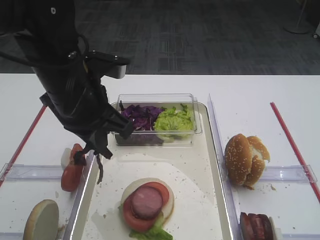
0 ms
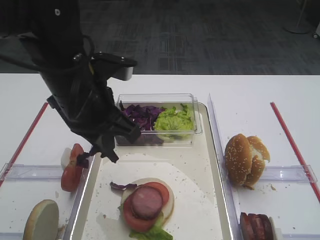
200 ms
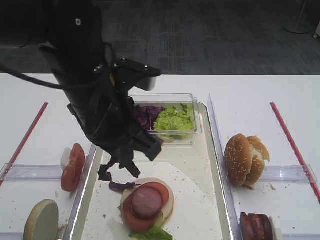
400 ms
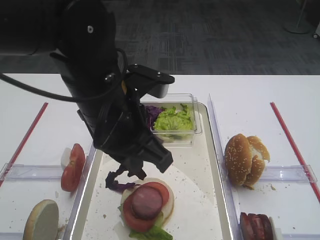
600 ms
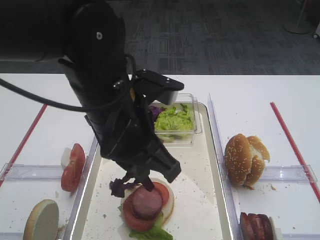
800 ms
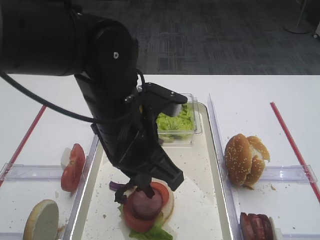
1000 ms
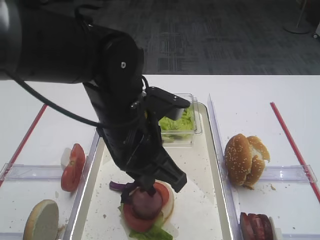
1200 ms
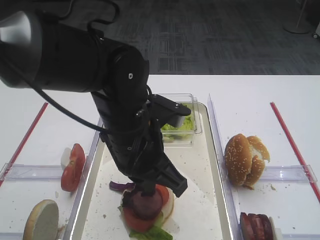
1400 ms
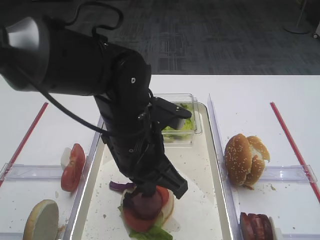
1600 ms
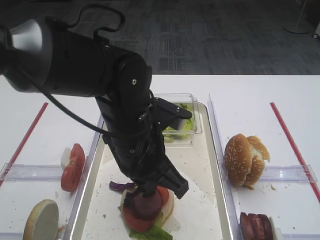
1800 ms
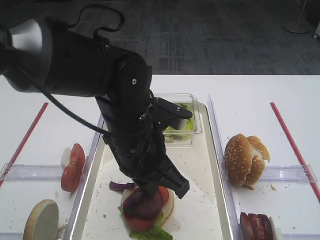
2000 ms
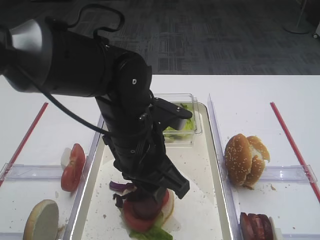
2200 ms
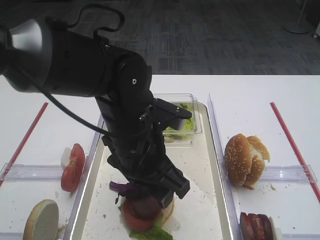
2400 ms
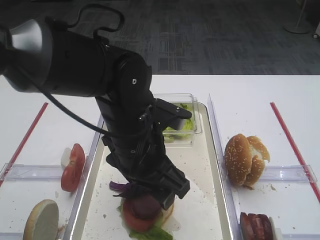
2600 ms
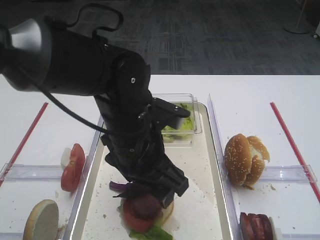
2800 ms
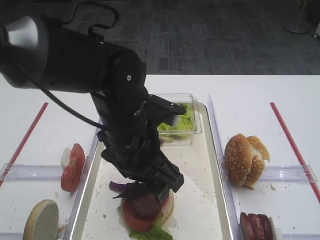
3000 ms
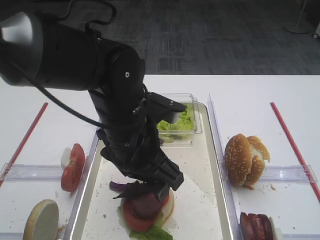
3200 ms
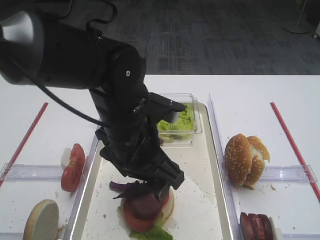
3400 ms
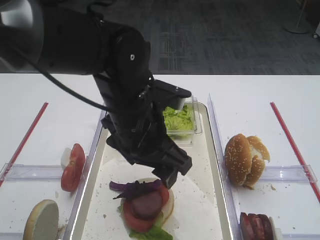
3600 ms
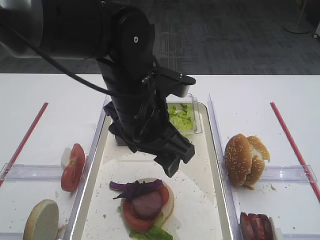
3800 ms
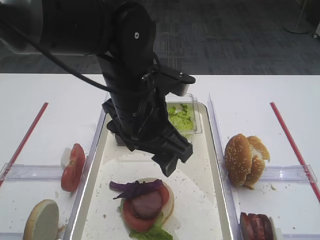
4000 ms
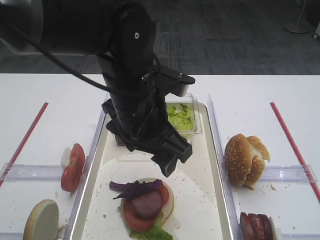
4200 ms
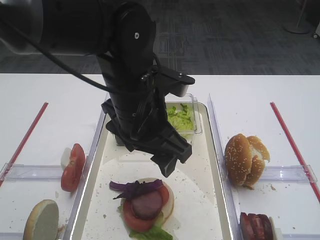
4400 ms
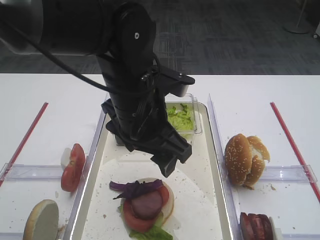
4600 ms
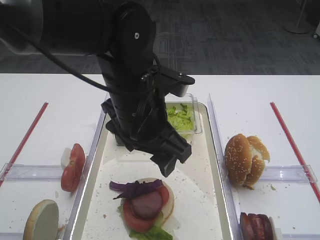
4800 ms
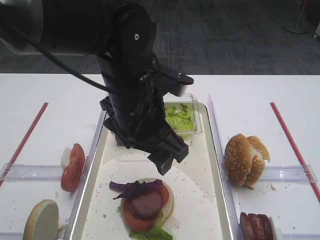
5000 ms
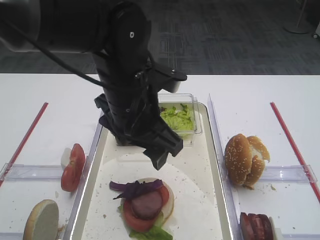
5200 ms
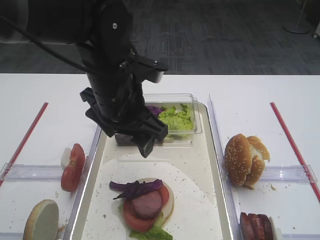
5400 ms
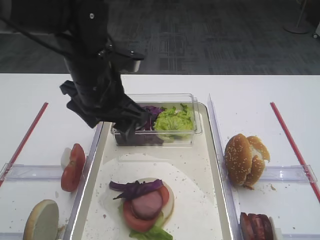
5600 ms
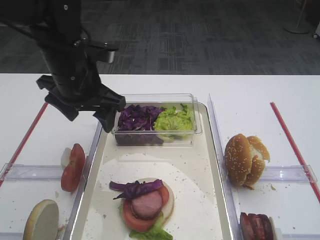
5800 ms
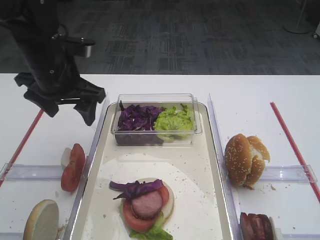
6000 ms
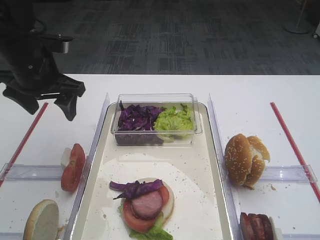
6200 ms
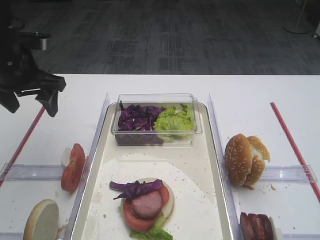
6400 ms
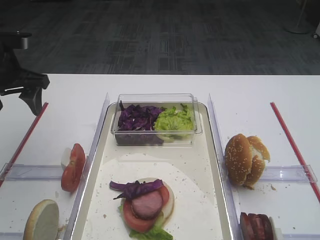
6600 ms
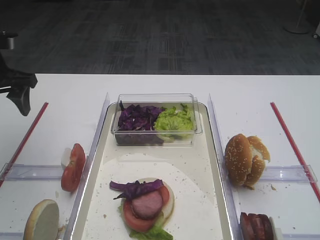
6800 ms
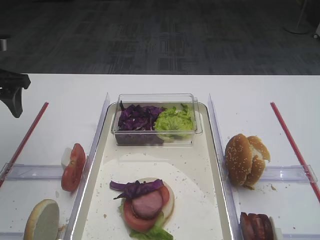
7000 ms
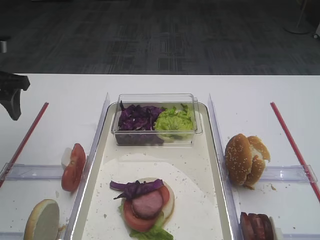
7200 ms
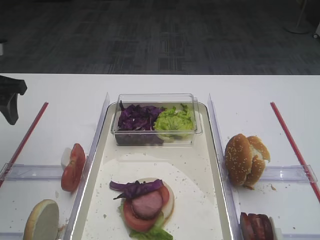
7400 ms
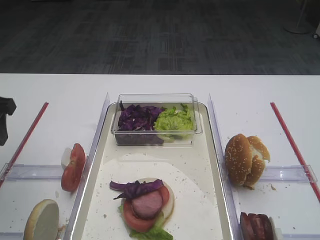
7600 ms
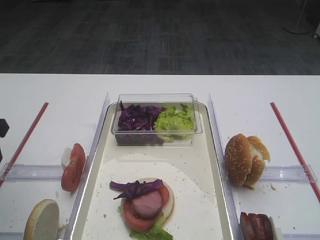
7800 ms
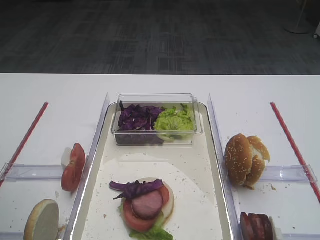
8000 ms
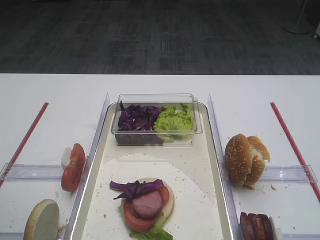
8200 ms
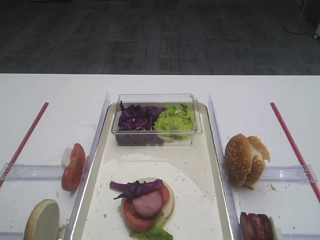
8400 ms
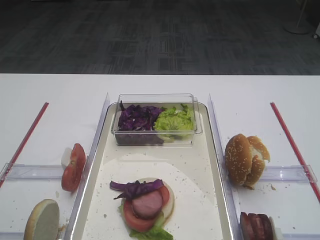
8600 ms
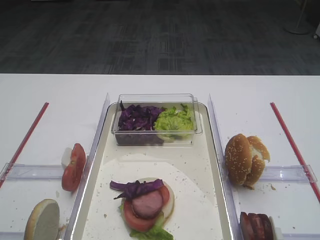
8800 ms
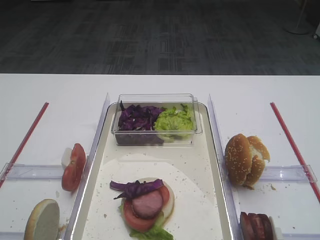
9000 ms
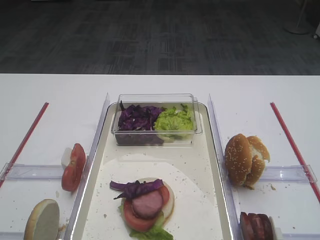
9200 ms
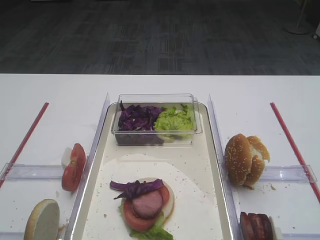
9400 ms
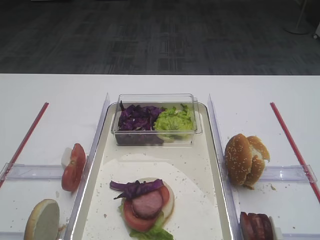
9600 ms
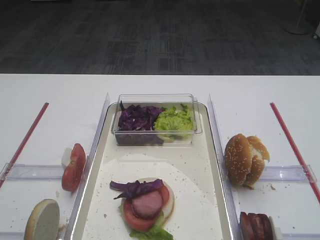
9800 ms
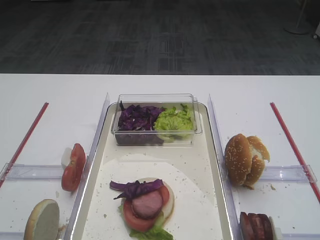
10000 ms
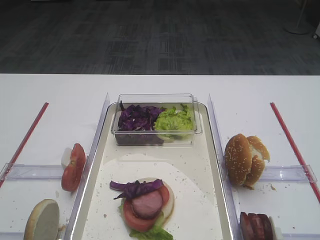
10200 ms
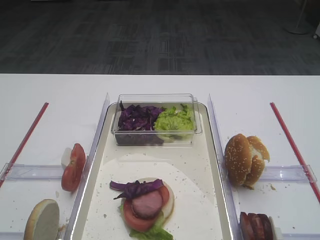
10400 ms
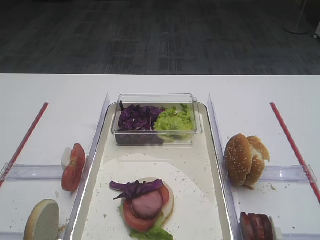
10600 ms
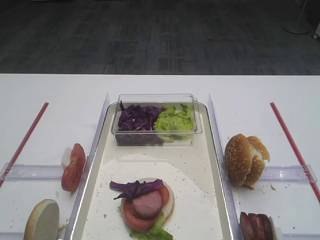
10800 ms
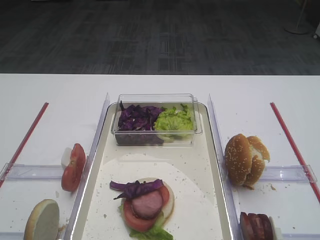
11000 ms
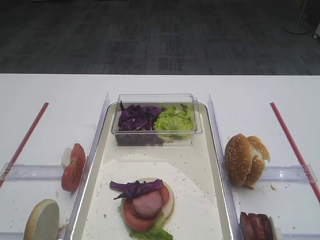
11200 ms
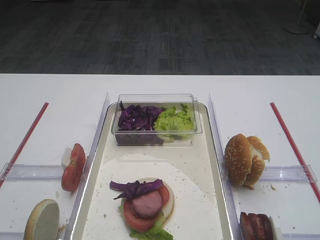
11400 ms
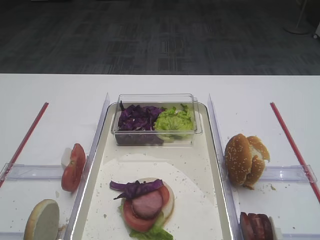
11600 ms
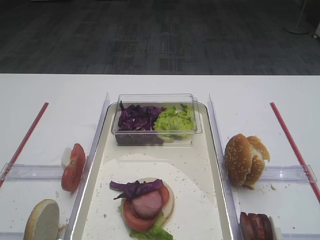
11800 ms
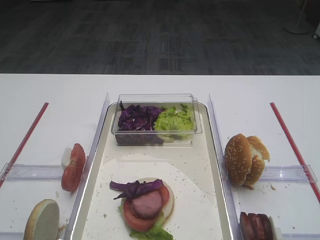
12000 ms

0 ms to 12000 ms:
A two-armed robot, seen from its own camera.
Step, 0 ms to 5600 ms: Place the purple cabbage on the cutlet with the left gripper.
0 ms to 1600 ms: The left gripper is displaced to the right and downward by about 10 cm.
1600 ms to 3000 ms: The left gripper opens its fingers.
3000 ms to 4400 ms: There are only small adjustments of the grippers.
4400 ms to 6000 ms: The left gripper goes some 15 cm to the left and forward.
6000 ms to 7600 ms: The left gripper moves to the left, roughly 15 cm.
7600 ms to 9000 ms: The left gripper moves backward, about 25 cm.
10400 ms to 12000 ms: Both grippers stay about where they are.

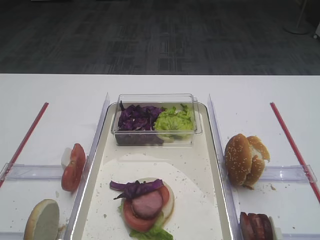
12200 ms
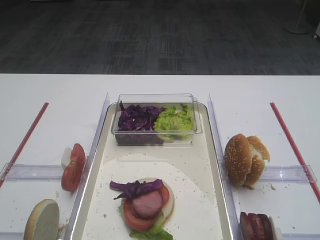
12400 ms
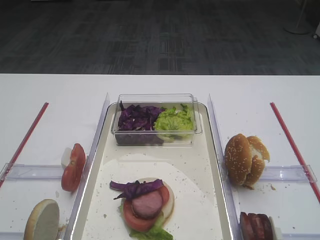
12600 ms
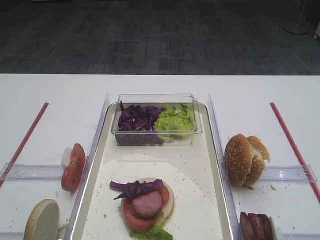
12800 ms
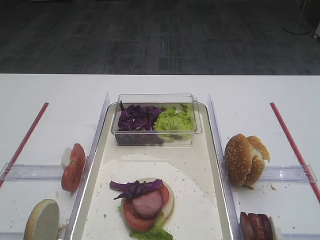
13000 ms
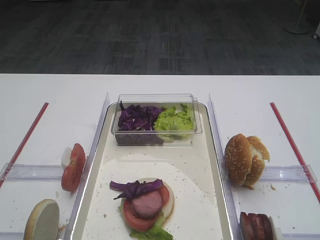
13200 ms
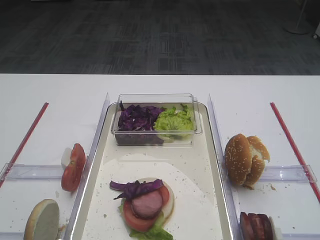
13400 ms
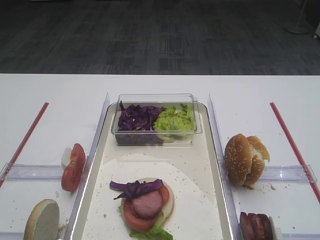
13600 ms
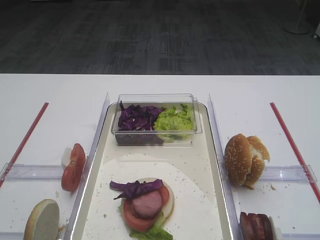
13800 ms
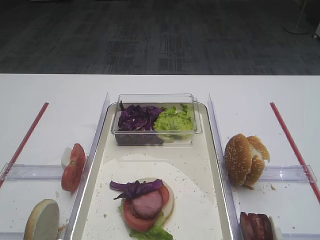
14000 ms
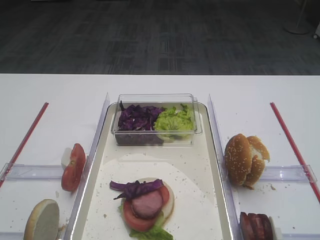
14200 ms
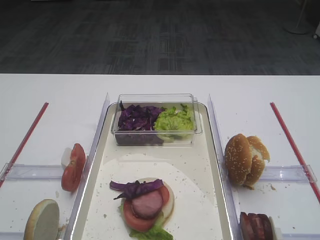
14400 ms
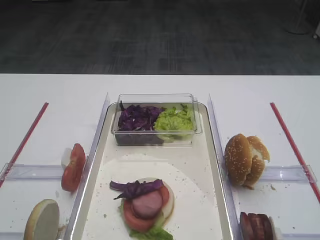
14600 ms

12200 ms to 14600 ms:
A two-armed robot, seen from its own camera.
12200 ms to 14600 ms: The two grippers keep their place.

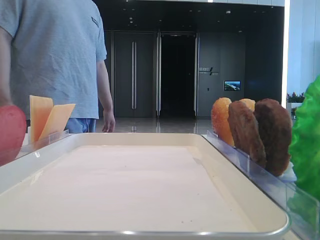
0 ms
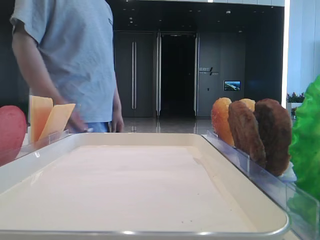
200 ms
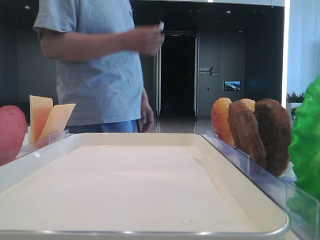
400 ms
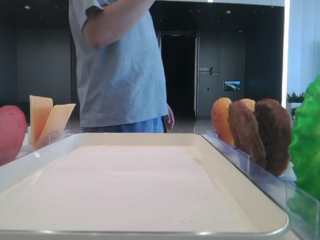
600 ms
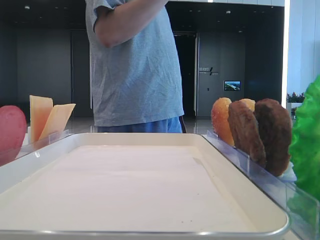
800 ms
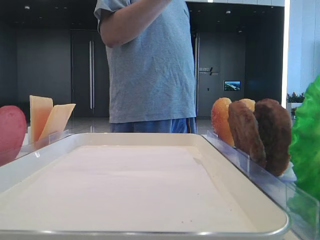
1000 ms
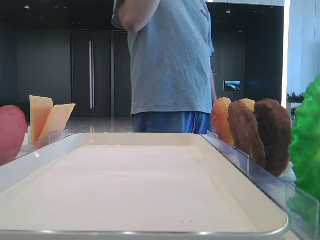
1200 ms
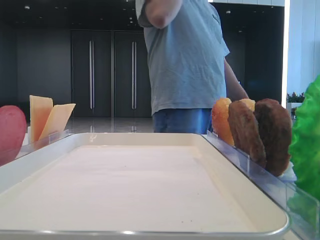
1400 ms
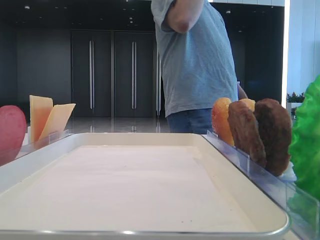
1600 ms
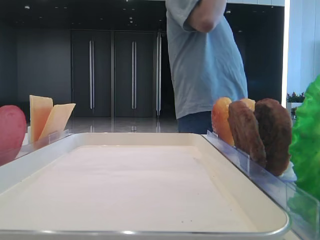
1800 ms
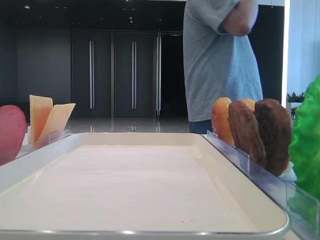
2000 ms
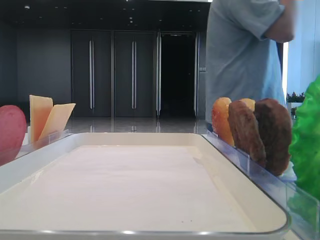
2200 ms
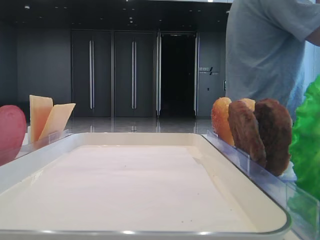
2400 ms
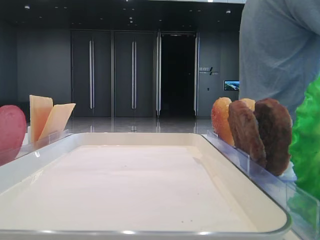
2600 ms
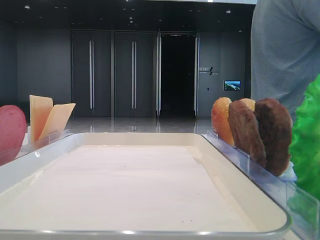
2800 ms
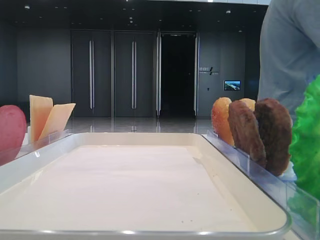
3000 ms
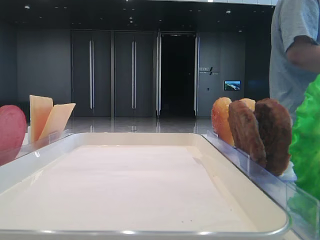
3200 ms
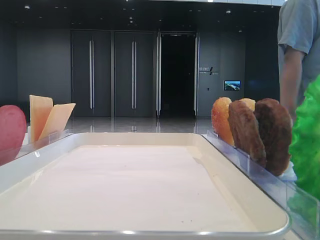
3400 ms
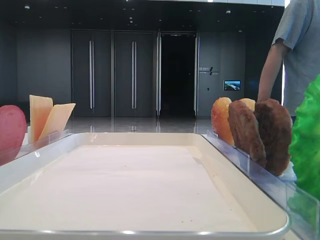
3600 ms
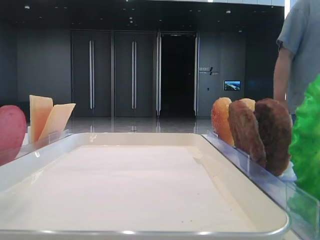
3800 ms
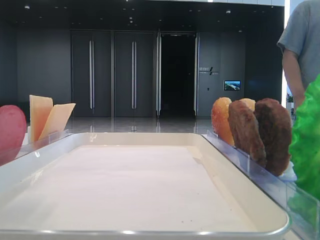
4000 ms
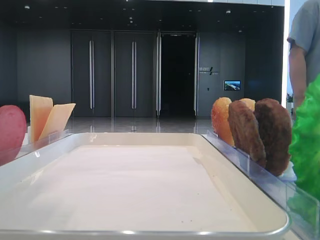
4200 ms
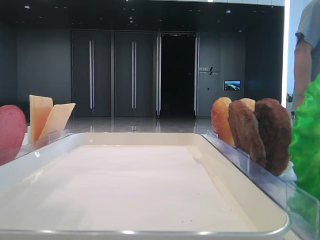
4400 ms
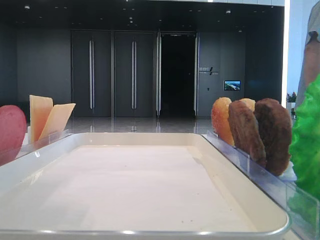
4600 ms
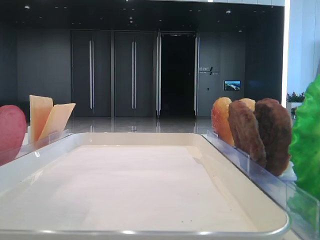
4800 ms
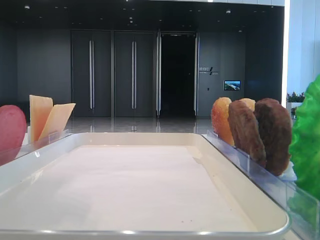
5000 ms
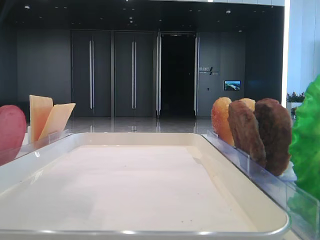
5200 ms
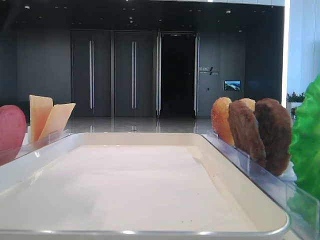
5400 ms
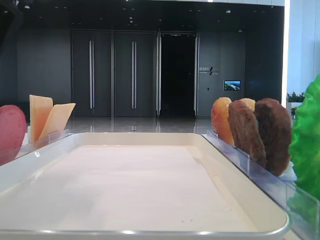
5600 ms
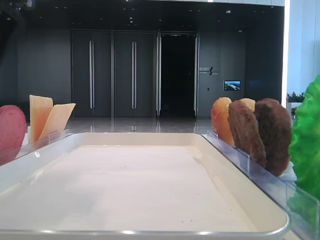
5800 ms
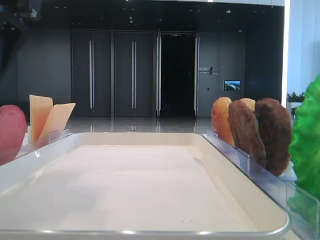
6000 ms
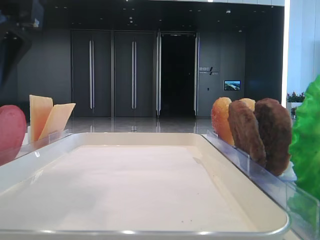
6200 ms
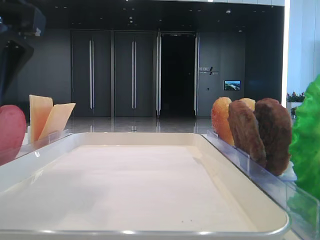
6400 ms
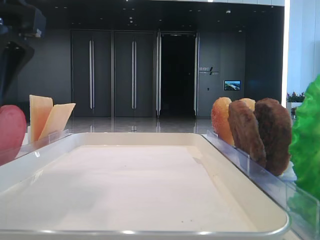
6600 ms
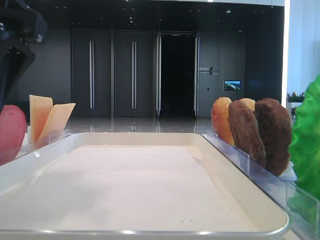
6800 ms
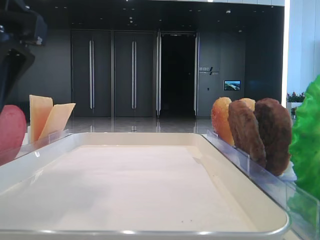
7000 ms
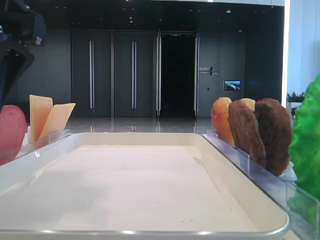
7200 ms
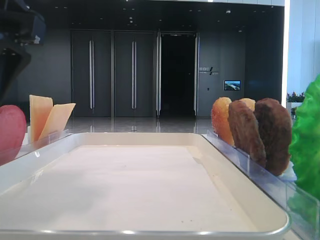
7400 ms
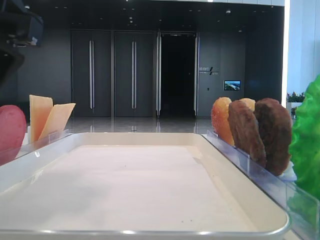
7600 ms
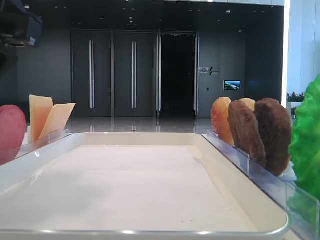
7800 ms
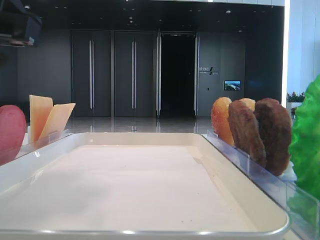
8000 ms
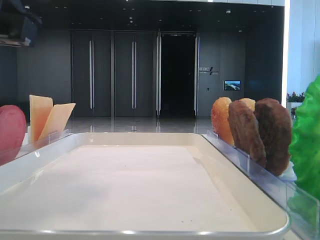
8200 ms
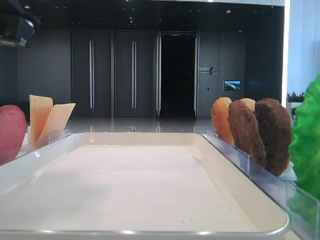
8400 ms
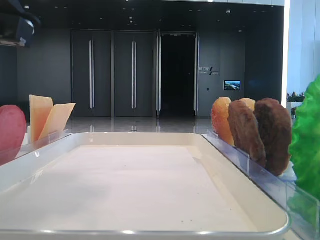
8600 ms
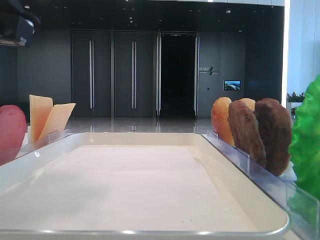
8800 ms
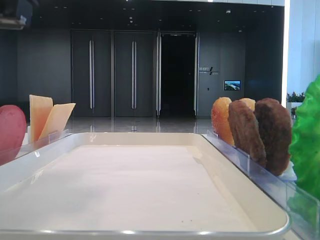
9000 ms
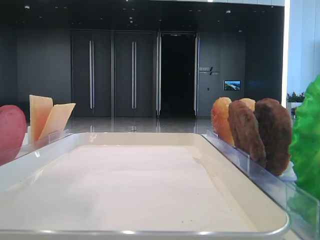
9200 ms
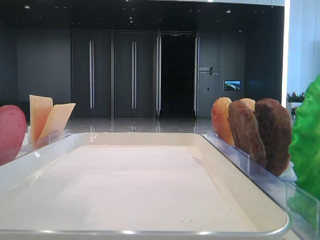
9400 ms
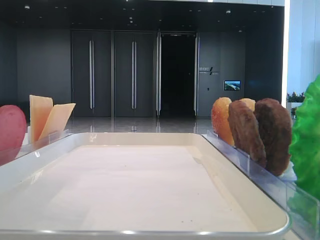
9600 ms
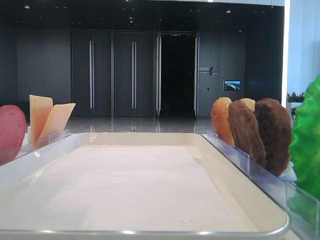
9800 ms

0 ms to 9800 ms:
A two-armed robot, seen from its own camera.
Step, 0 ms to 8600 ms: Pick up the bottom bread with the left hand.
1400 ms to 2800 ms: The left gripper goes some 15 cm forward.
2800 ms to 4200 ms: The left gripper shifts approximately 15 cm to the right.
5600 ms to 7000 ms: There are only small adjustments of the grippers.
7000 ms to 8400 ms: The left gripper closes up.
